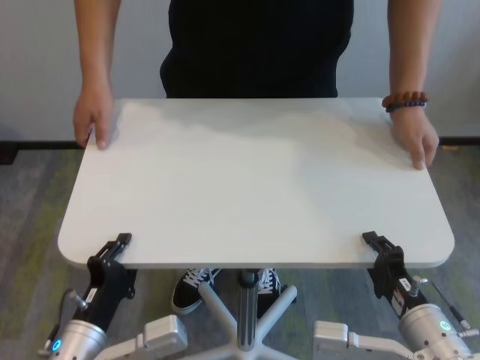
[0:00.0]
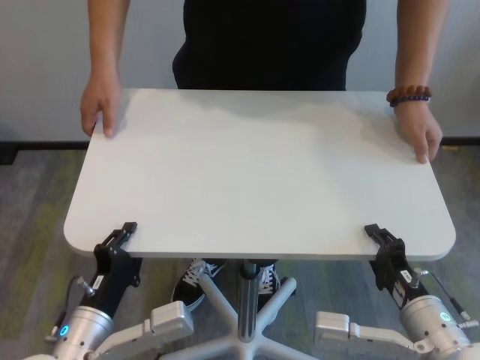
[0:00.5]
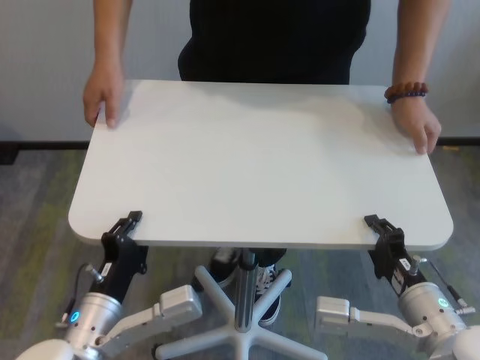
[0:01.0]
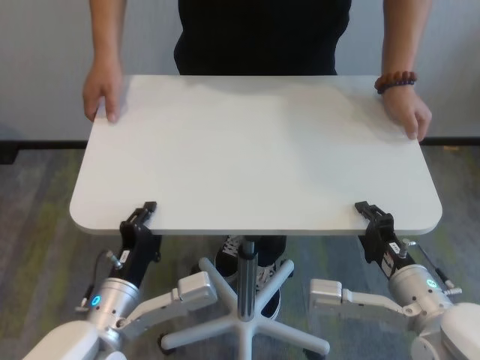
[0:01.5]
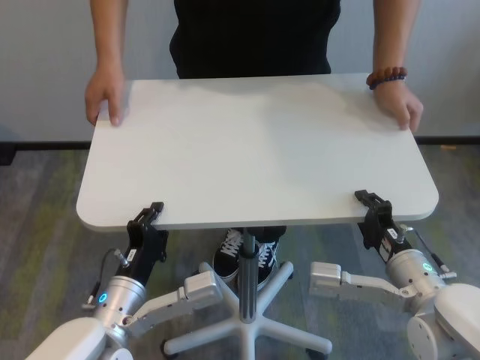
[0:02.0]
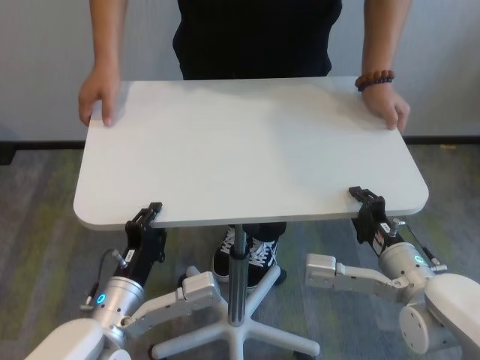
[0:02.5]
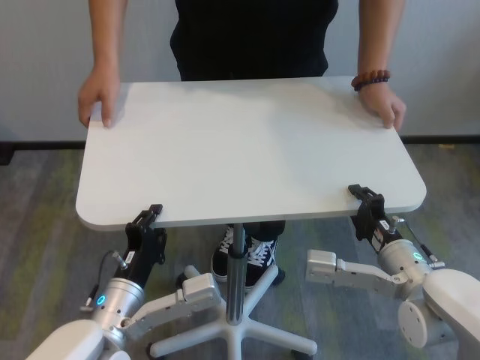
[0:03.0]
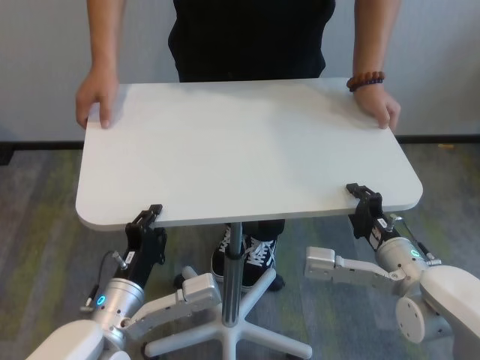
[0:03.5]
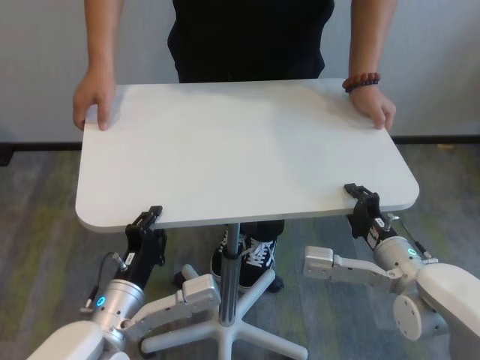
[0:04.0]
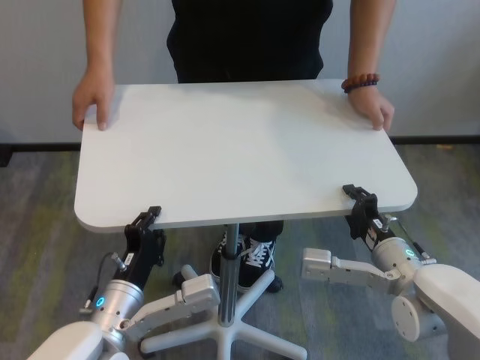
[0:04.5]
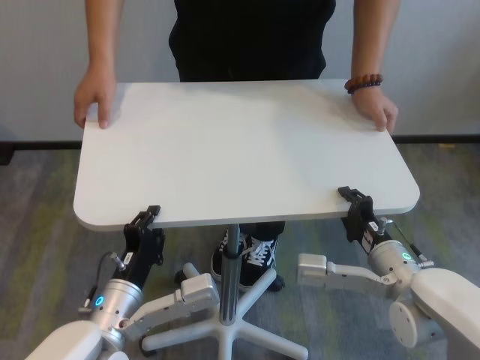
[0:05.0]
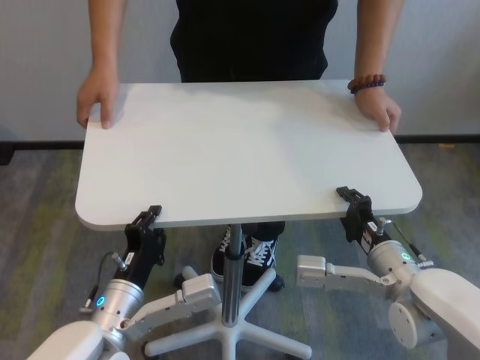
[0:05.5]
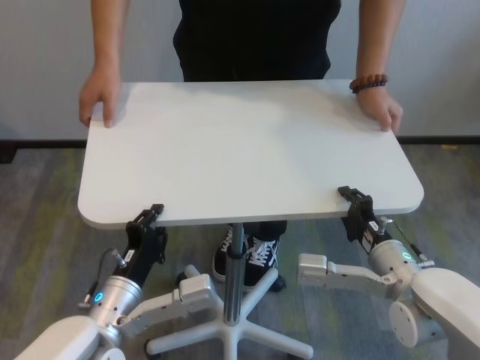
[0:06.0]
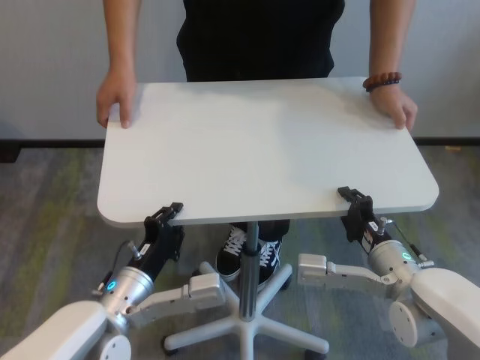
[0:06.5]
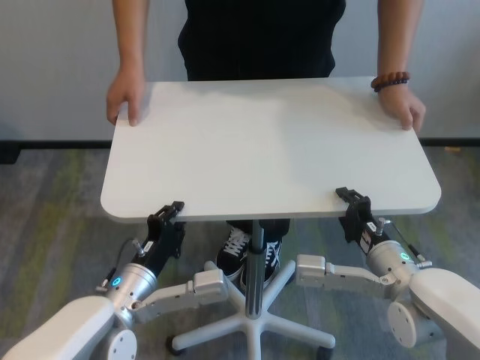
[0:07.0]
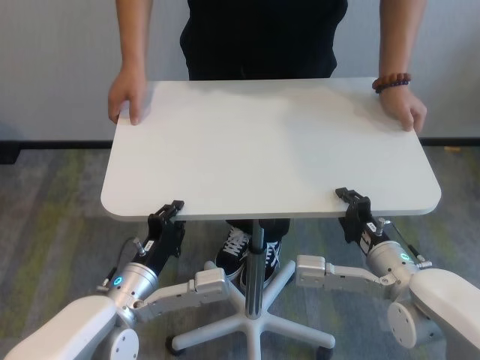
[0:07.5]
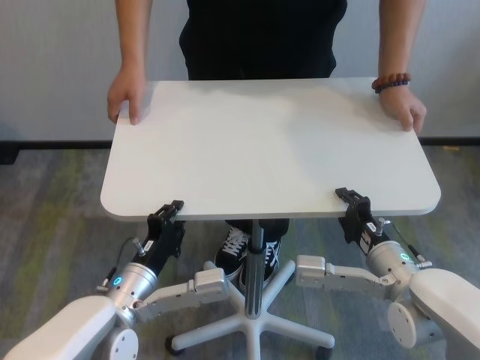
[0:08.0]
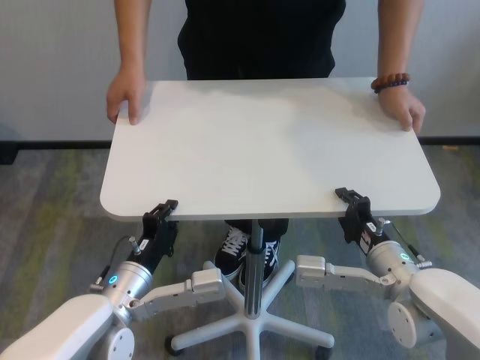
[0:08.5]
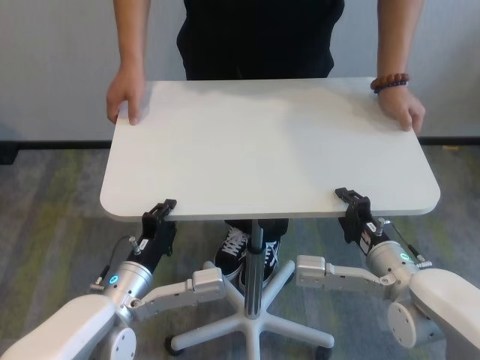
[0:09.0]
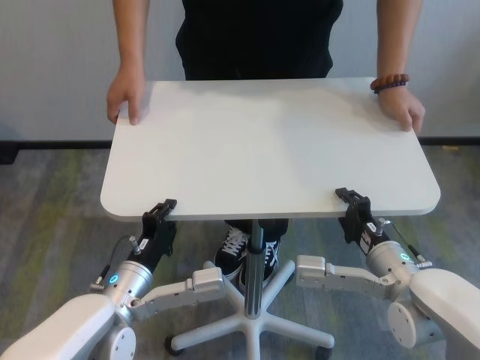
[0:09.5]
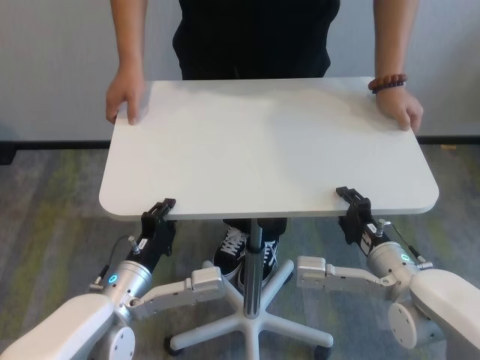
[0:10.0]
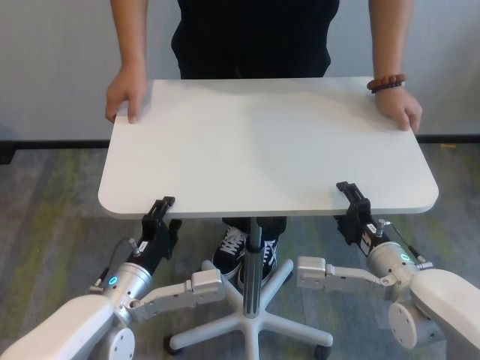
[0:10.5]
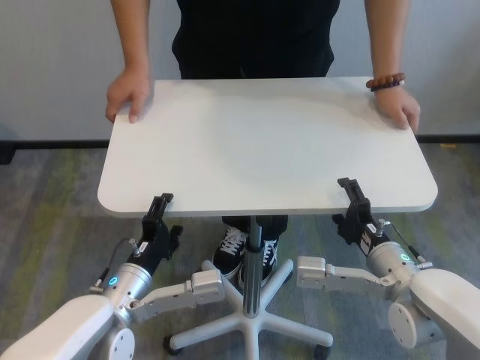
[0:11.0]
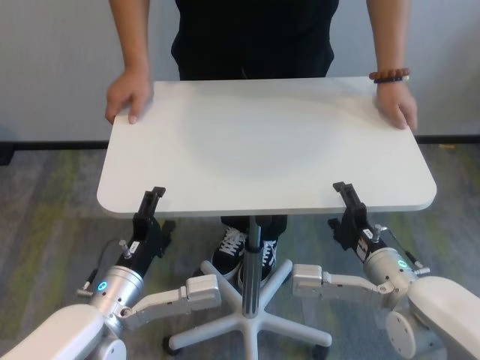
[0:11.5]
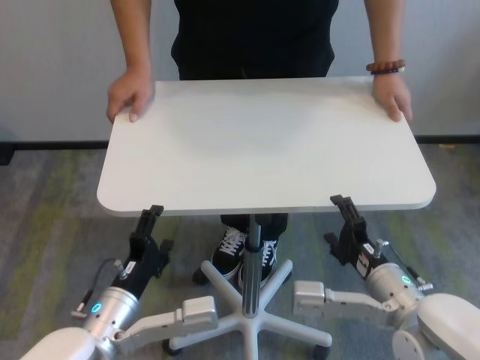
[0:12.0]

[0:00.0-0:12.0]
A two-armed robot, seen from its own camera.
Task of the whole recording: human machine collaborative table moving.
Step, 0:00.0 to 0:11.5: Move the table forward with both grippers.
